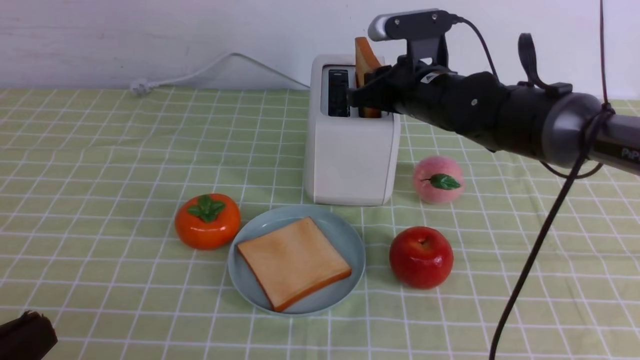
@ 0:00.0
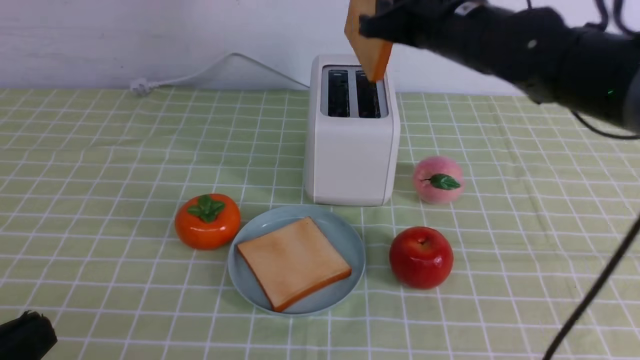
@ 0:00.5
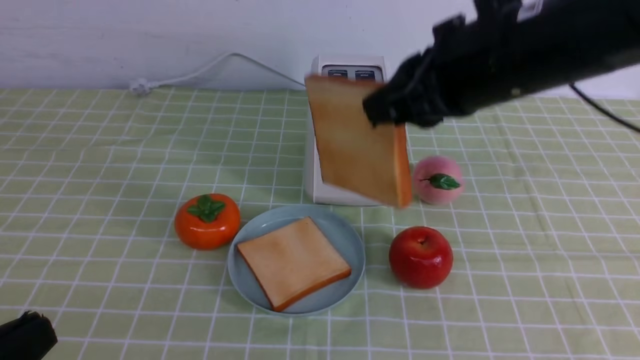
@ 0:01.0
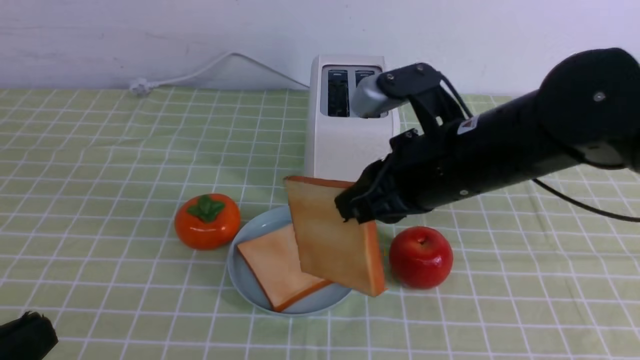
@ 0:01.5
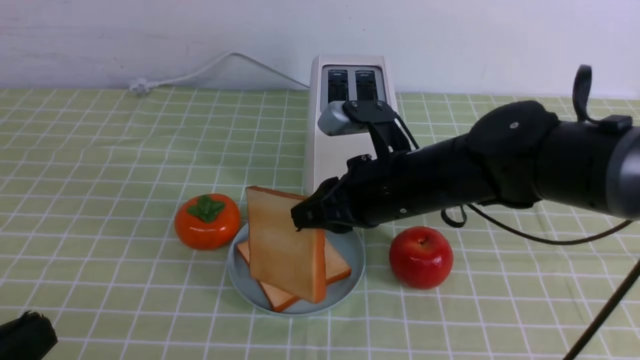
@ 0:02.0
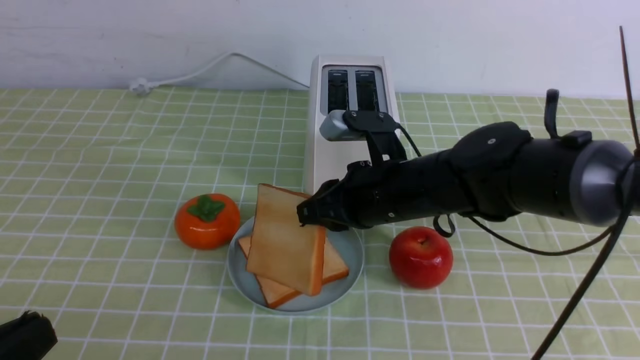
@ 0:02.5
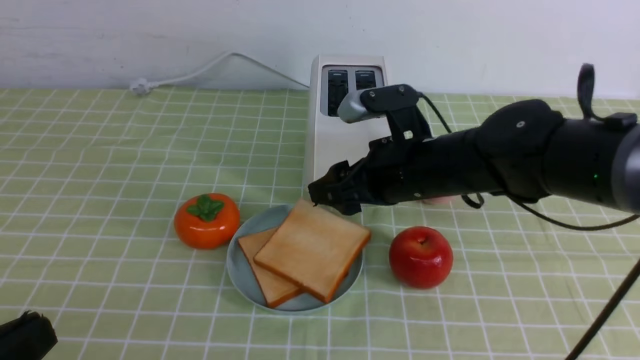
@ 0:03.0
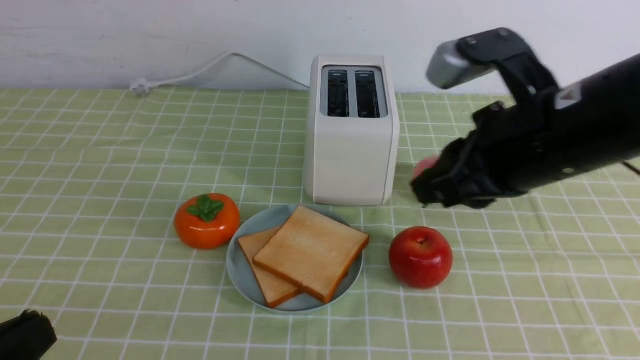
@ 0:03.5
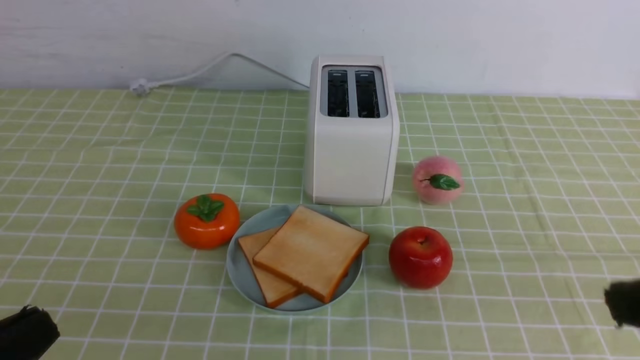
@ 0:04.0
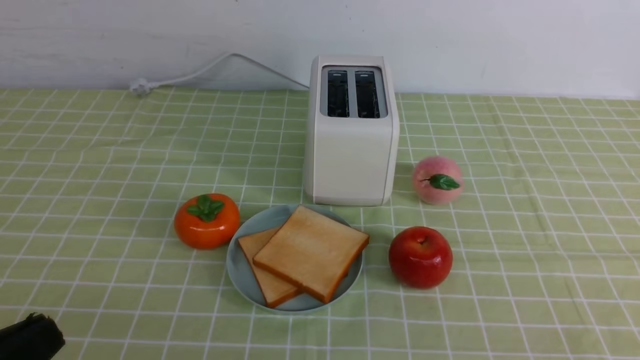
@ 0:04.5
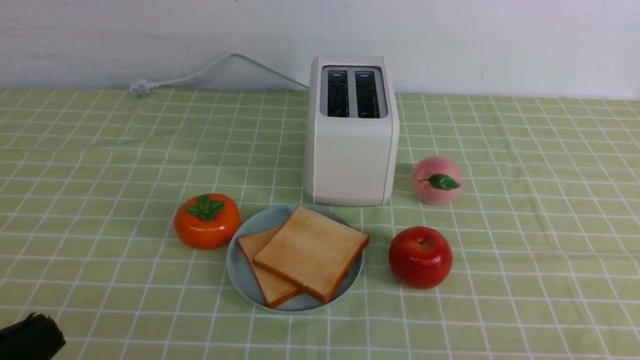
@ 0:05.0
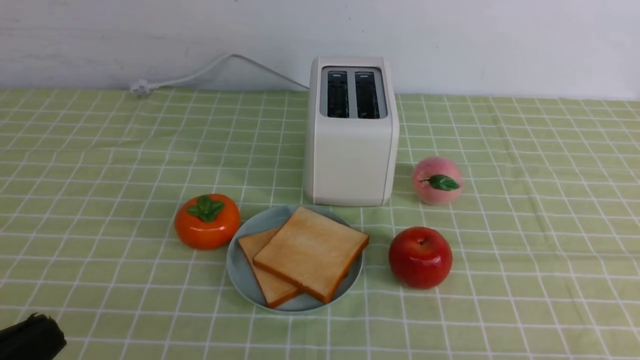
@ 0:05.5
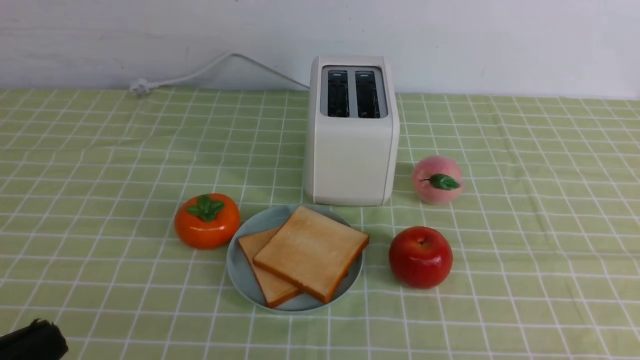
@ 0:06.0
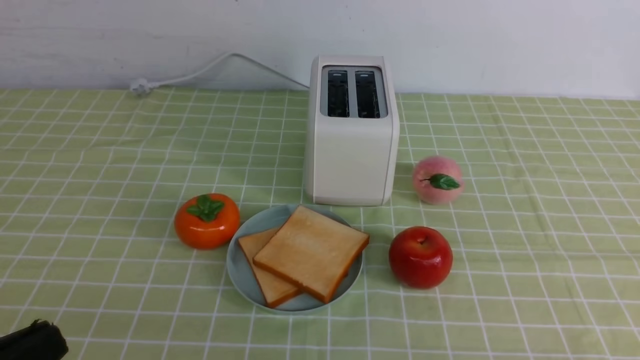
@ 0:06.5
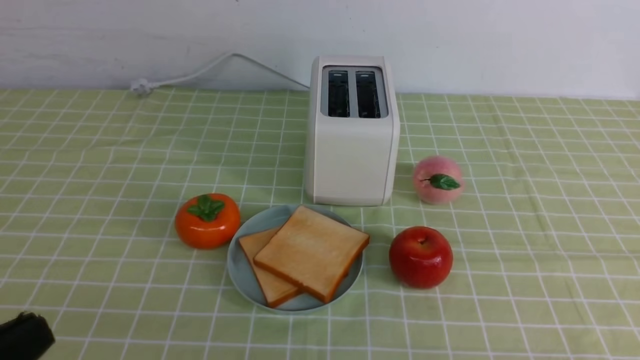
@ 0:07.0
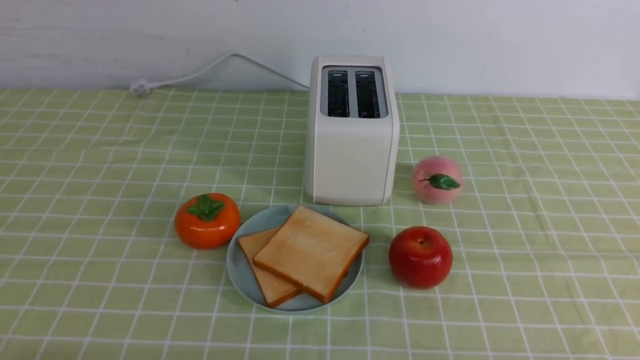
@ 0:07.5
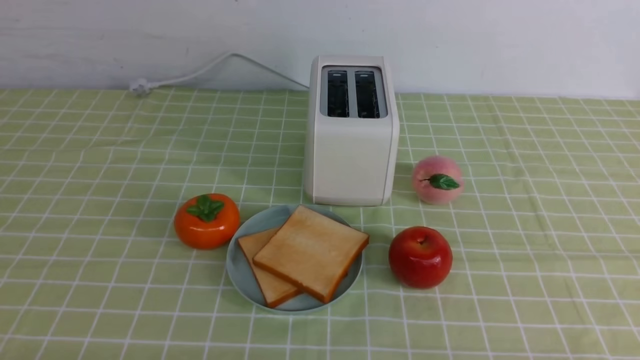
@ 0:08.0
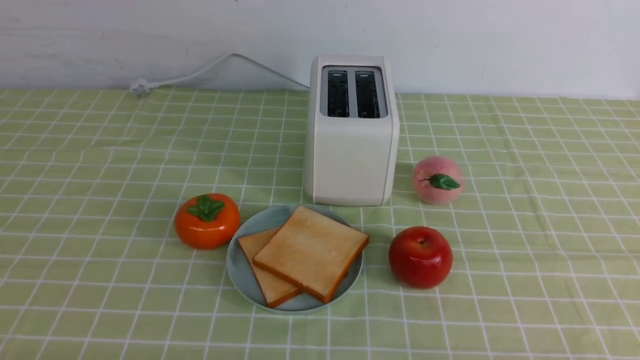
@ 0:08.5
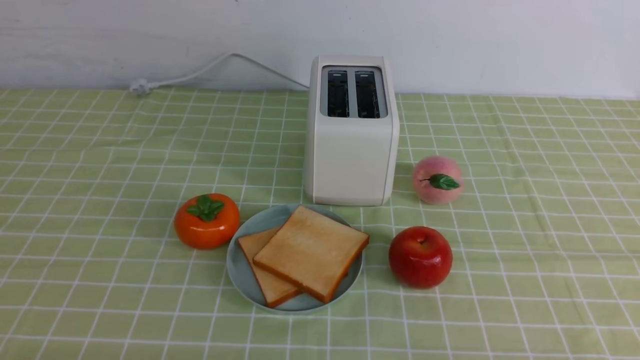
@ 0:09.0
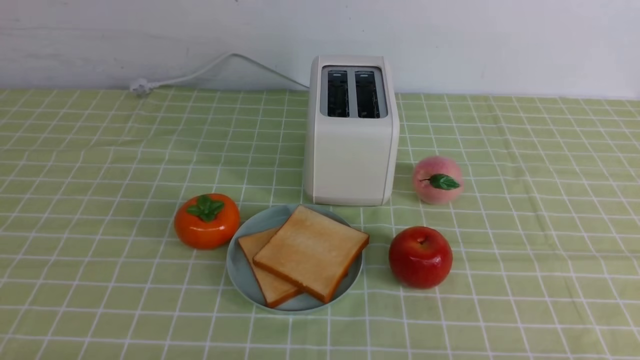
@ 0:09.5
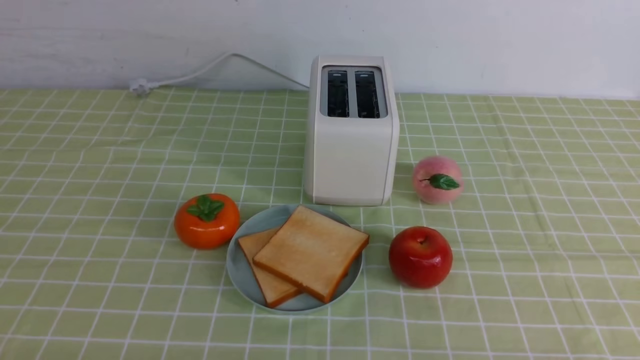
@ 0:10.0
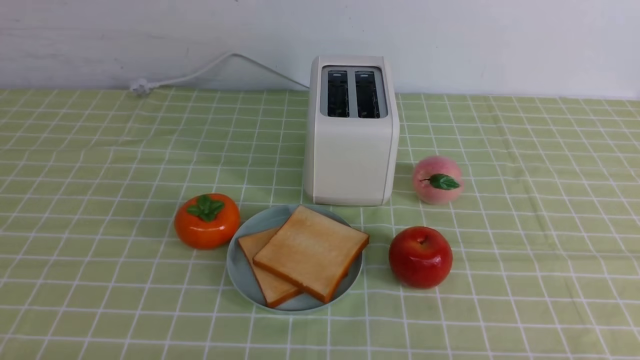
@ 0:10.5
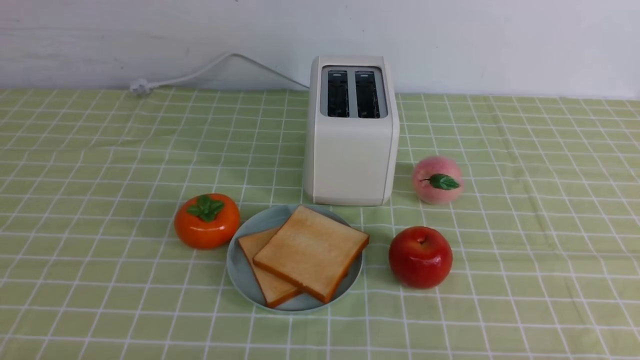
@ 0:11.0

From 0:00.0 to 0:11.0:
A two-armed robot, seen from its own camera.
Task of the whole recording: take toasted bread from bread machine on green coffee tablecloth place on plate.
Step, from 0:01.0 to 0:03.0: use the right arm to put a slice of bread into the plate.
From 0:00.0 to 0:02.0: The right gripper moves backward, roughly 15 cm.
From 0:02.0 to 0:03.5: The right gripper moves upward, to the right and backward, about 15 cm, and opens and closes again.
From 0:03.5 to 0:05.5: The right gripper is displaced backward, downward and to the right by some 30 cm.
From 0:05.5 to 0:07.5: The left gripper travels downward by about 10 cm.
